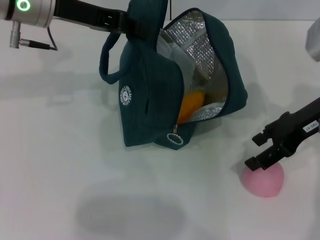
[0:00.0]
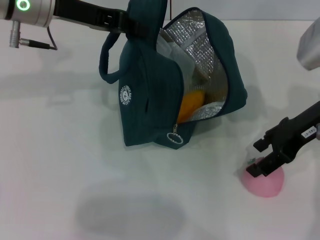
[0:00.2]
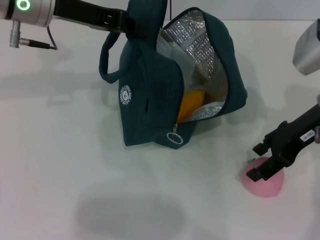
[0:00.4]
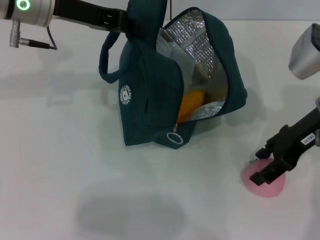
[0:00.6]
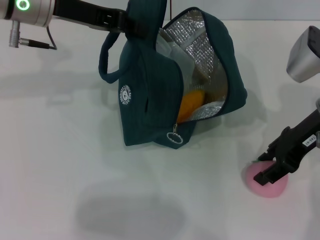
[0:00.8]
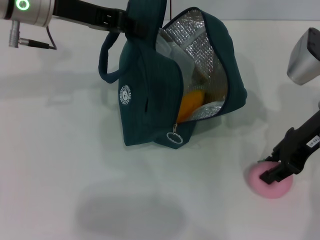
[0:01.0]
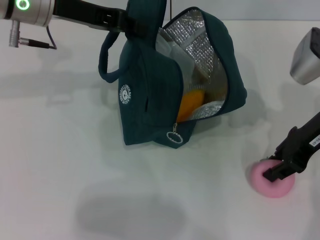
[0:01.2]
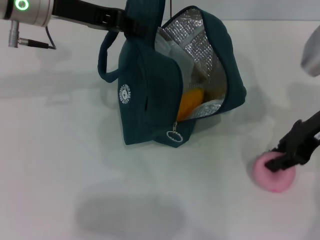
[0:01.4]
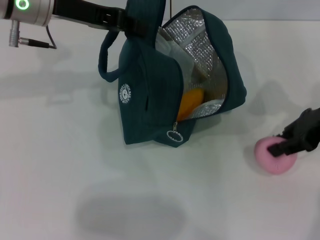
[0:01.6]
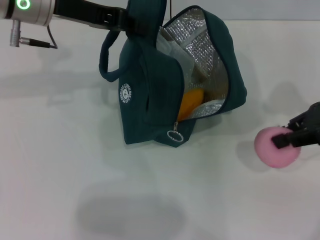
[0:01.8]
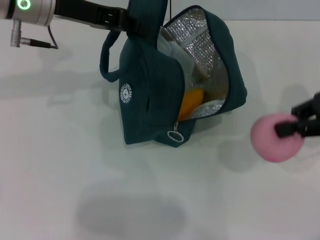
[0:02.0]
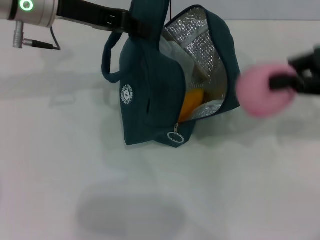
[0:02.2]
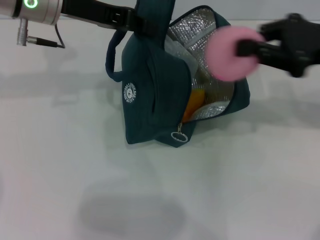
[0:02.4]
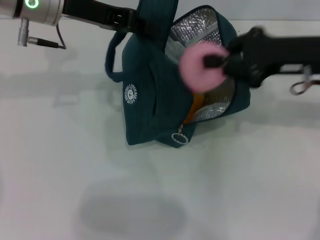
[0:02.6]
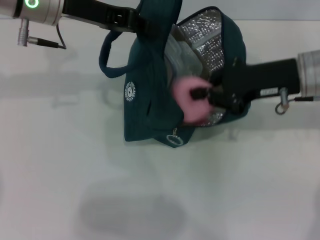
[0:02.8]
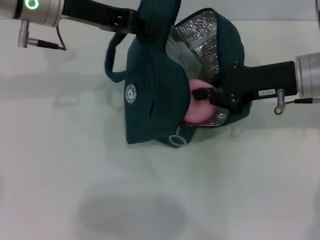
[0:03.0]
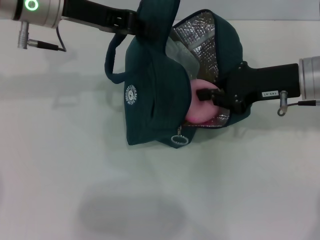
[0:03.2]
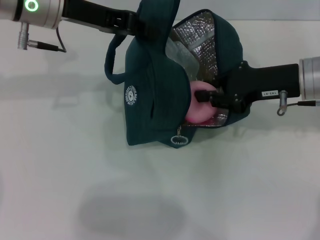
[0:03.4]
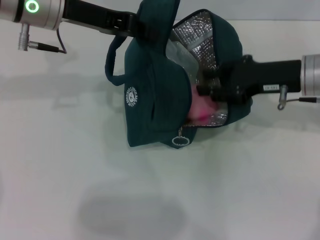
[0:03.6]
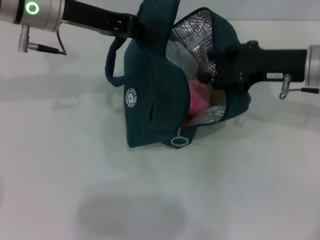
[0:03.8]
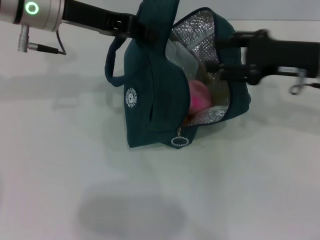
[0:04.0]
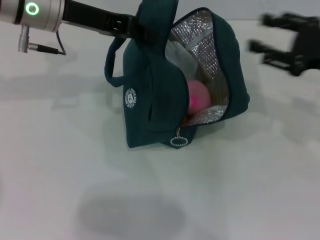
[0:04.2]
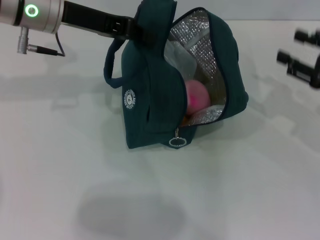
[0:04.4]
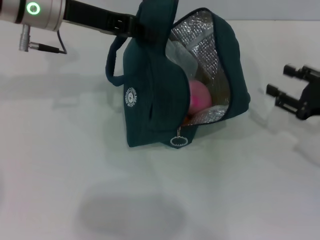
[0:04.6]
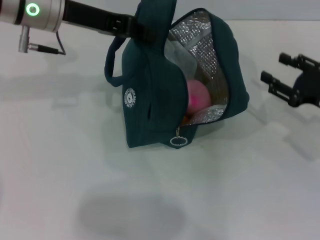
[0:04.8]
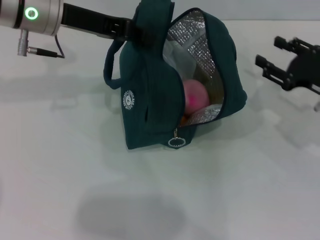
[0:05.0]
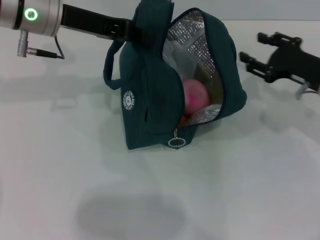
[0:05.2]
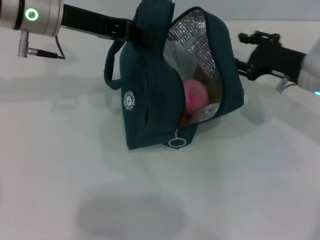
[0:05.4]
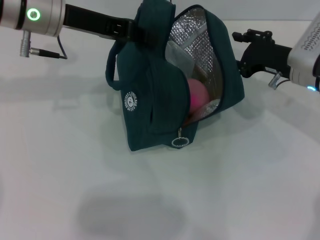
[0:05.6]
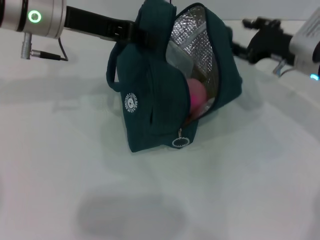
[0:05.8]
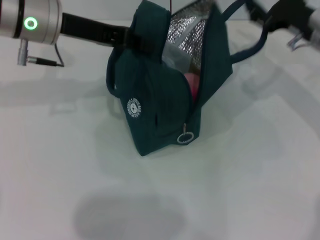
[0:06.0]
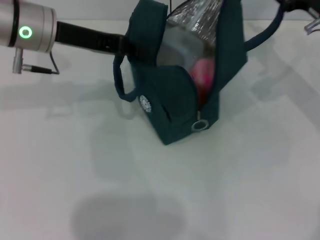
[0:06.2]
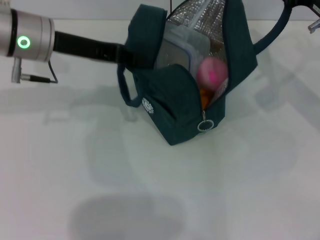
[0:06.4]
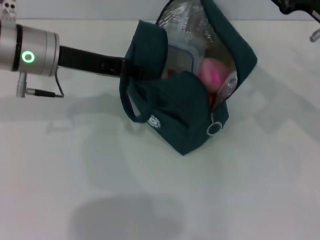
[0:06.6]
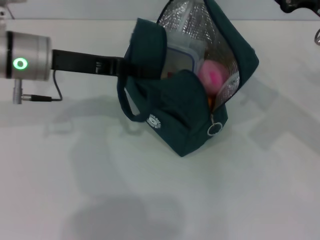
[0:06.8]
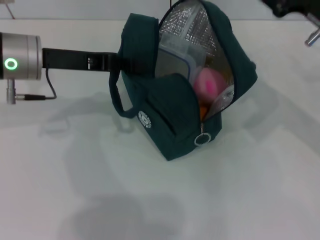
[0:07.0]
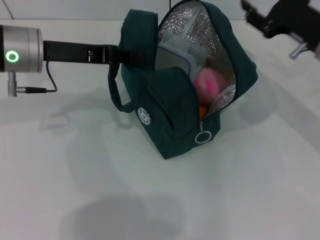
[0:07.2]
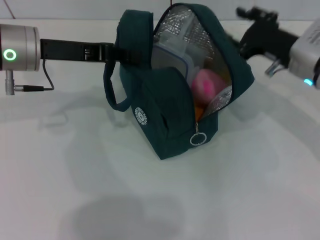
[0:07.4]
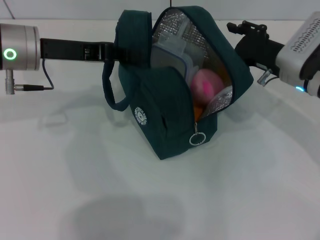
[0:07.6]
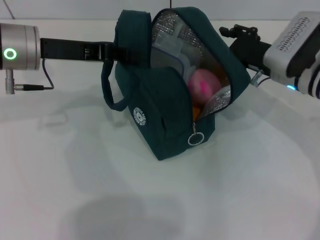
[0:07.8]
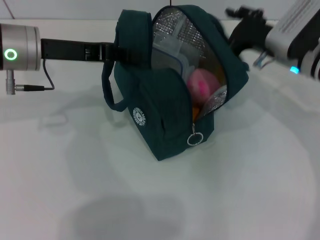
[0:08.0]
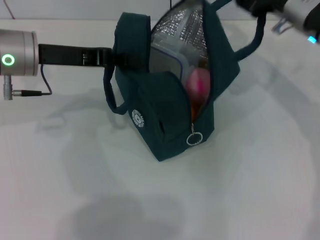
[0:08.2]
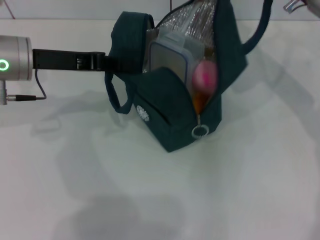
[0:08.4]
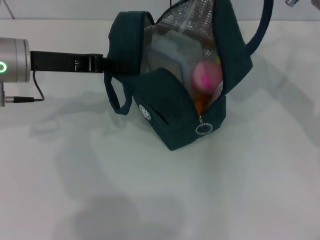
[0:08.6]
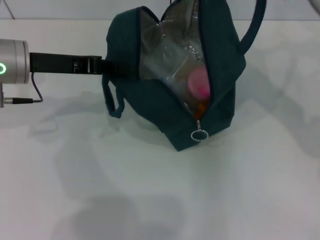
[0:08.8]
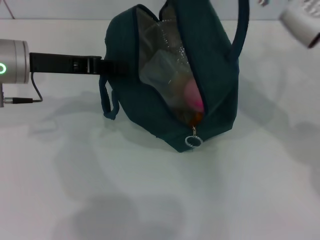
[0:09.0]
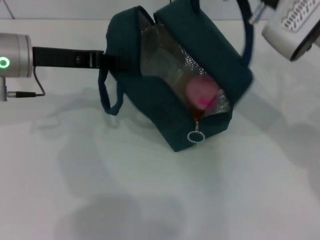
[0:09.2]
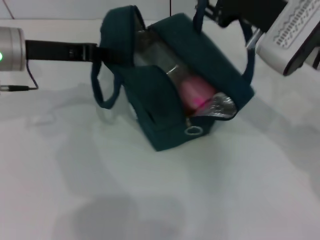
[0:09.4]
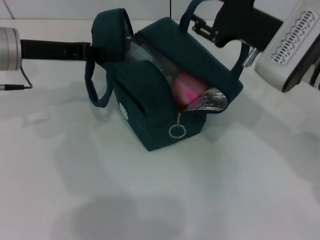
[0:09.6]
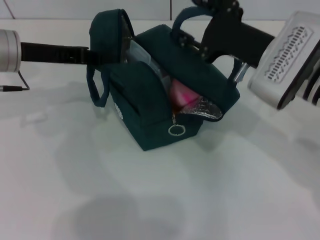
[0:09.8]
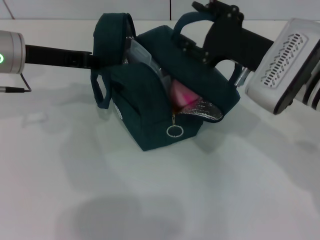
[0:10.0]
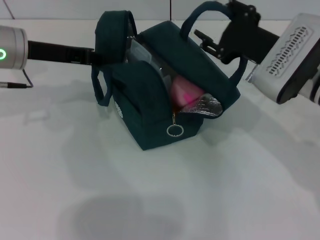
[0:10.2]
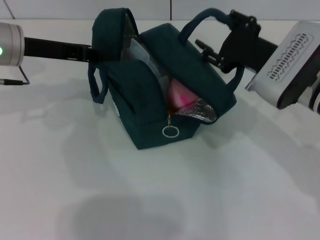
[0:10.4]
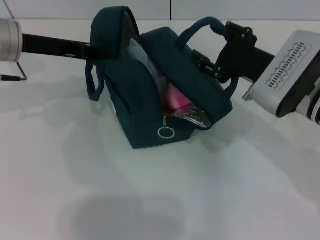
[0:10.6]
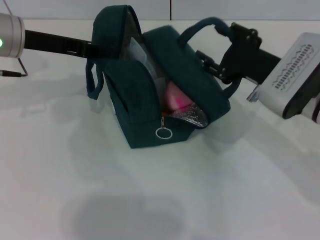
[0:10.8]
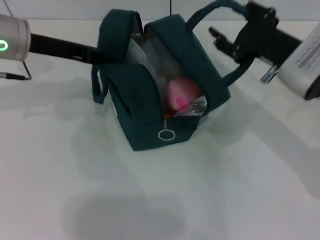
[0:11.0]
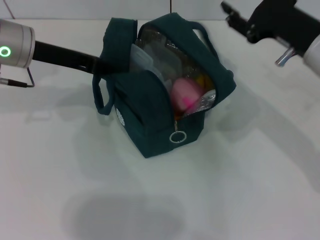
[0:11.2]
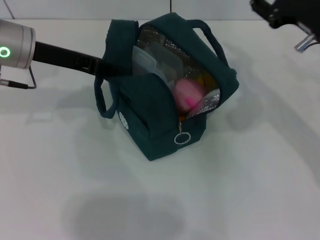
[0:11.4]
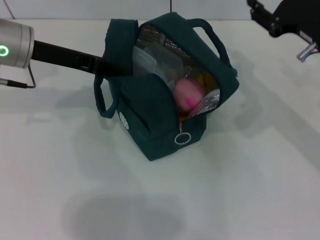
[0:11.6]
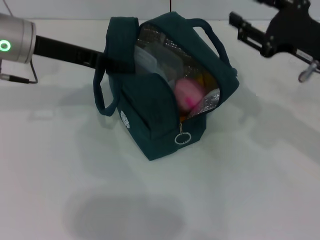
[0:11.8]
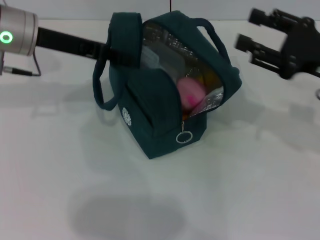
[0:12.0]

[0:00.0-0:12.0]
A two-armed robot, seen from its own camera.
Step, 0:04.0 to 0:11.0: Hold the lunch bag with your right hand.
0:00.0 to 0:01.6: The right gripper closes.
0:01.6 to 0:03.0: The right gripper is displaced to the left by about 5 cm.
0:03.0 to 0:04.4: The right gripper heads to the right, covering some 10 cm, and opens its fingers.
0:04.4 to 0:06.0: The right gripper moves forward and to the left, approximately 15 cm.
0:06.0 to 0:07.6: The left gripper ends up some 5 cm from where it was.
0:07.6 to 0:09.0: The right gripper shifts some 15 cm upward.
0:09.0 to 0:10.4: The right gripper is displaced downward by roughly 10 cm.
0:10.4 to 0:12.0: The right gripper is displaced to the right by roughly 10 cm.

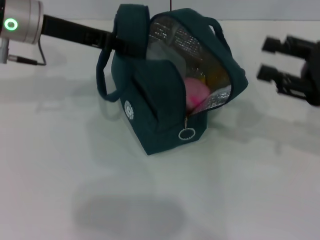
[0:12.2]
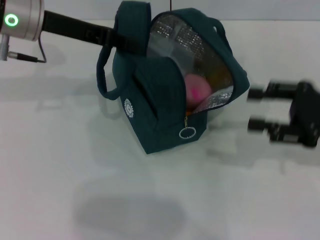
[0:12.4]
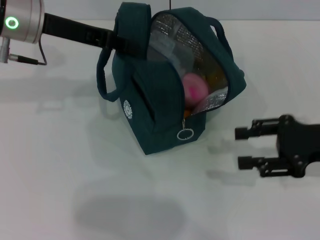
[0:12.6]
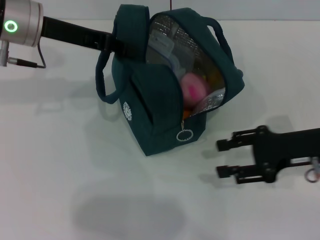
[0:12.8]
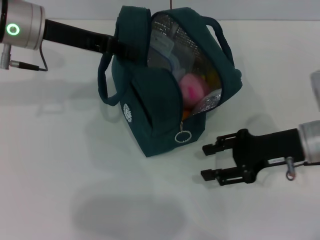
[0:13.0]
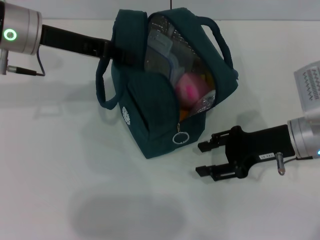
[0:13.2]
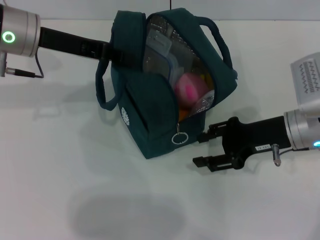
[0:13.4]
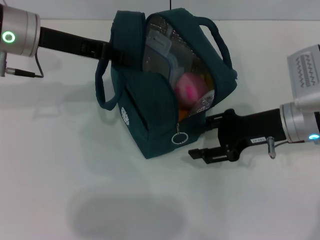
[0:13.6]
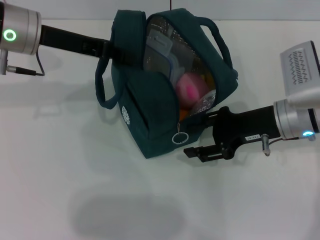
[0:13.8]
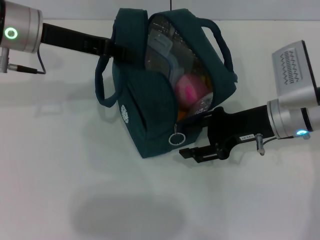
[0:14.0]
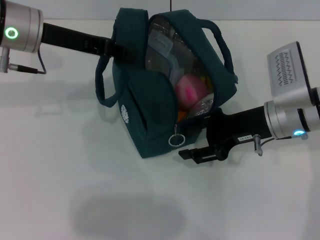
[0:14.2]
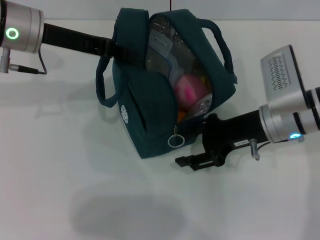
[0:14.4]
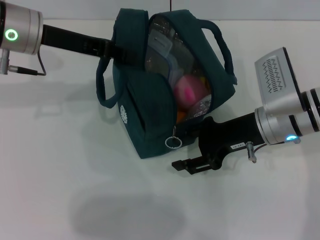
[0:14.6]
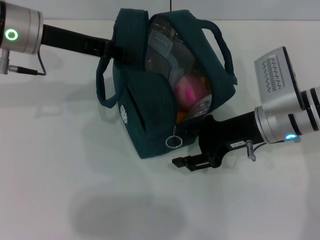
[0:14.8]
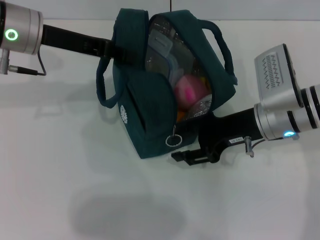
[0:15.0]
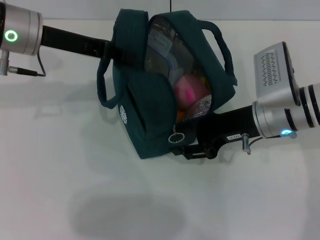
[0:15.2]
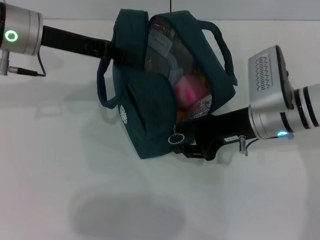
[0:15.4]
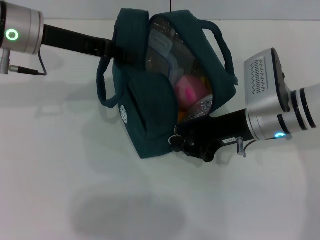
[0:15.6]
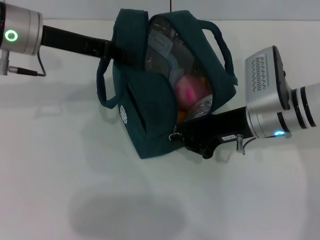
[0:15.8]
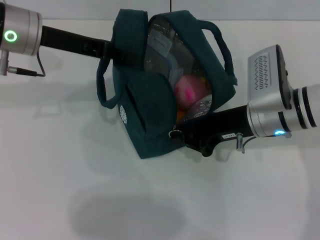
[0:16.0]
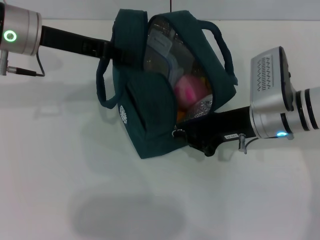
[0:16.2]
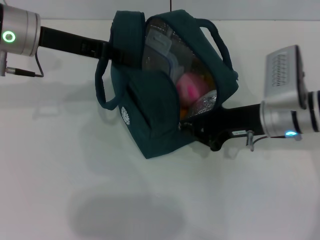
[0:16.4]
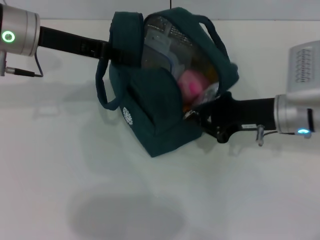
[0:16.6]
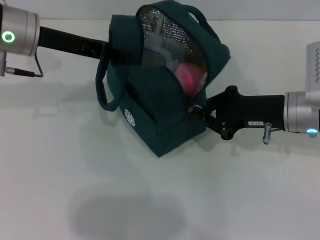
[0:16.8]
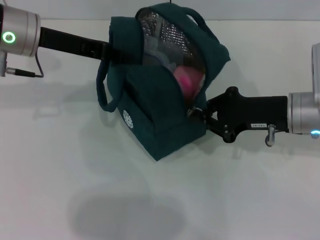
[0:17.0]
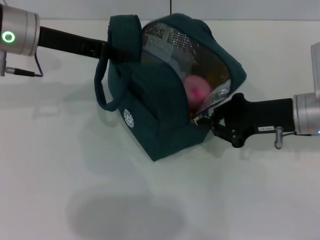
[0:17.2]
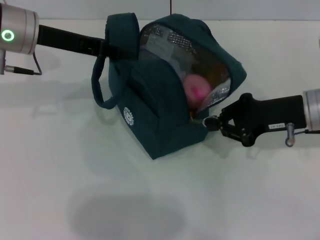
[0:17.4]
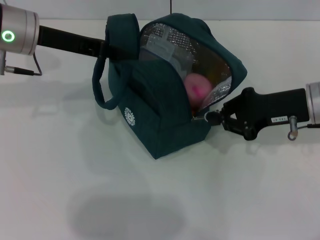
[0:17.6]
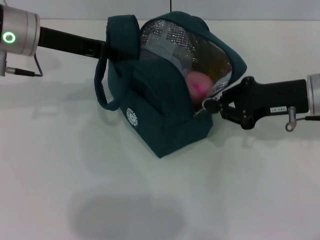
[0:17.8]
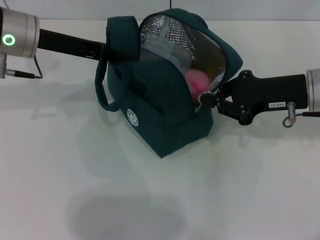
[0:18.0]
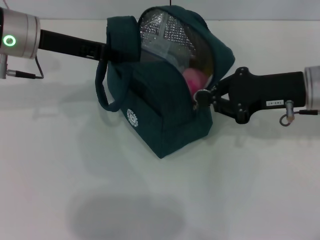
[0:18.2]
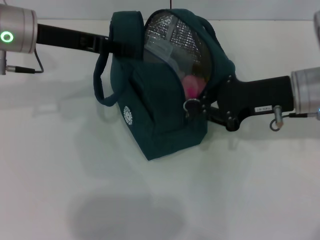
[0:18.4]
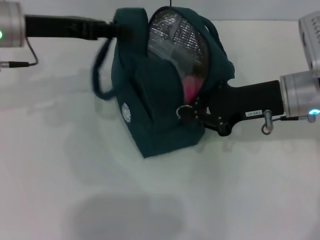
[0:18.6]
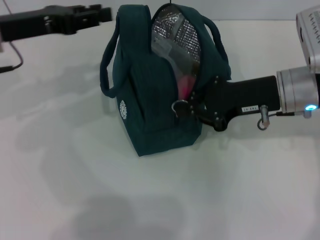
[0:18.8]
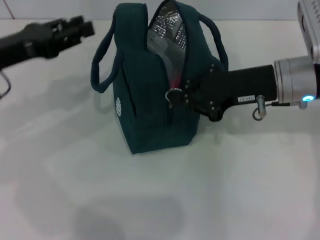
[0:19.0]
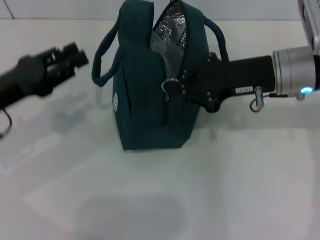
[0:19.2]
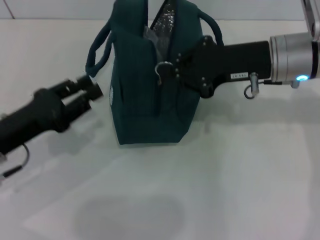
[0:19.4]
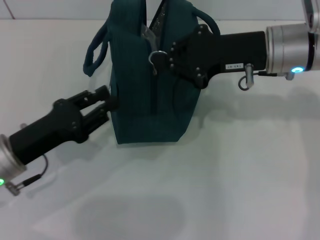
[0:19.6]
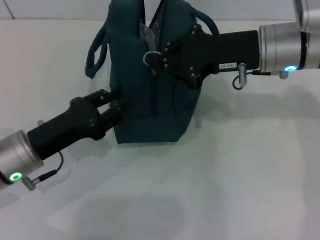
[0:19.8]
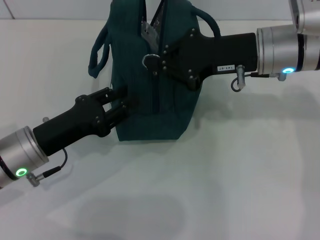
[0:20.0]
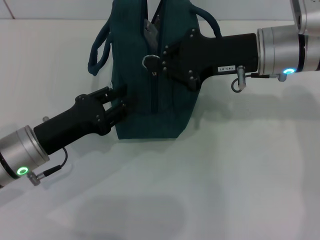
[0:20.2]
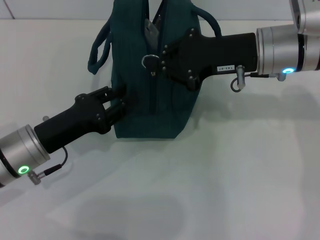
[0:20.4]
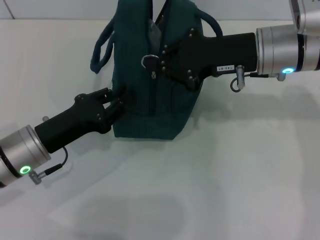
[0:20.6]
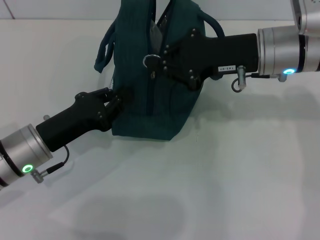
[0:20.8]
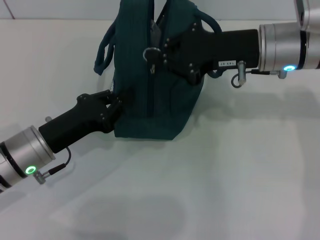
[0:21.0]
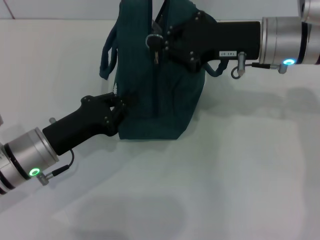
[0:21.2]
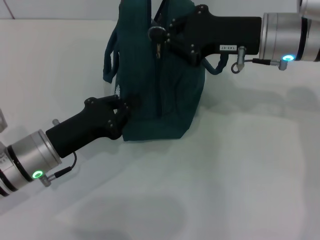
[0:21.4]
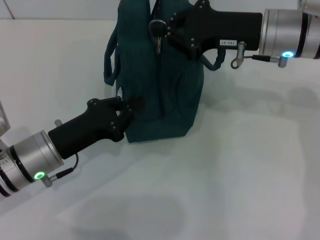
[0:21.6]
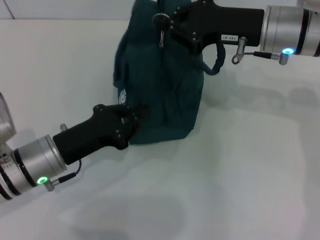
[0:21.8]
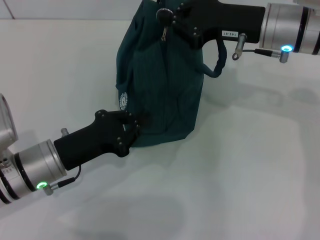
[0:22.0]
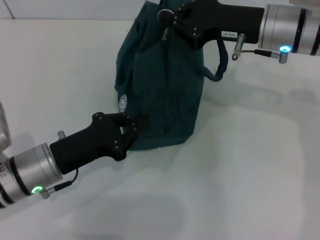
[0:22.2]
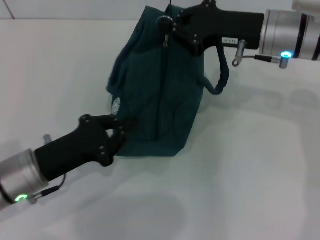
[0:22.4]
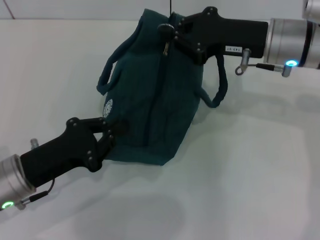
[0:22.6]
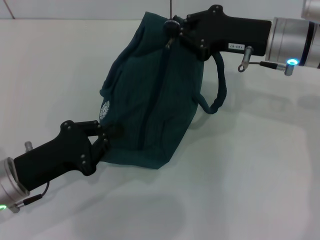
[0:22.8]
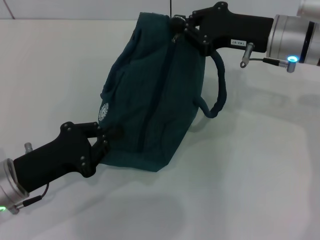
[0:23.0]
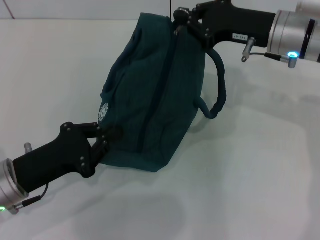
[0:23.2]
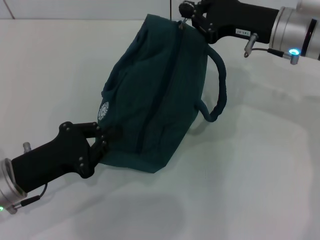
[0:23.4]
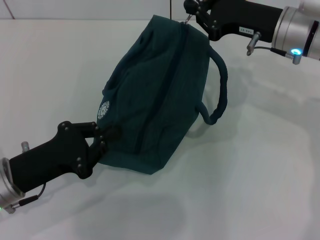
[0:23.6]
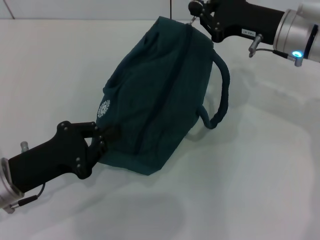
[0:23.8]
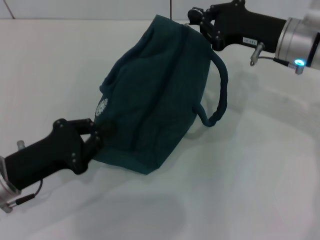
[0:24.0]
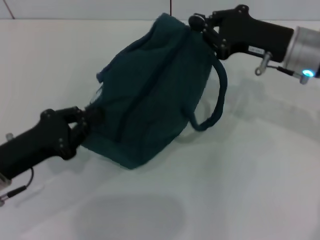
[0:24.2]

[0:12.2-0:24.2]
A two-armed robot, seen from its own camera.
0:12.2 to 0:13.8: The right gripper travels to the left and downward by about 10 cm.
0:13.8 to 0:15.2: The grippers move only a little.
0:15.2 to 0:16.6: The right gripper closes up.
0:16.6 to 0:18.2: The right gripper travels upward by roughly 5 cm.
0:18.2 to 0:19.8: The left gripper heads backward and downward, covering about 20 cm, and opens; the right gripper heads to the left, covering roughly 5 cm.
0:19.8 to 0:21.2: The left gripper closes.
0:21.2 to 0:22.6: The grippers make only small movements.
0:22.6 to 0:24.2: There are only small adjustments of the grippers.
